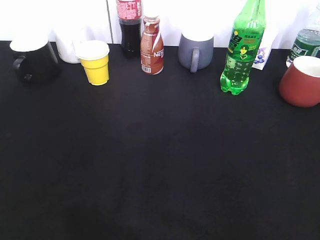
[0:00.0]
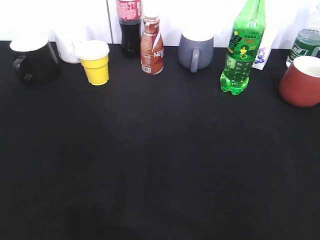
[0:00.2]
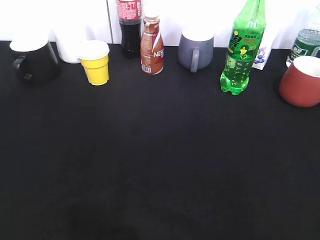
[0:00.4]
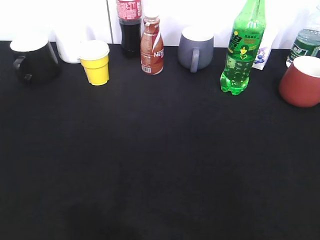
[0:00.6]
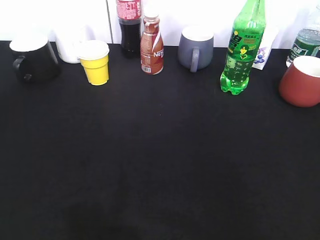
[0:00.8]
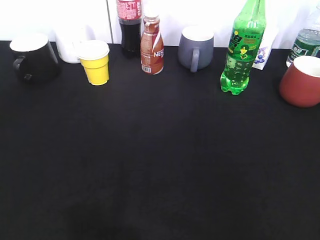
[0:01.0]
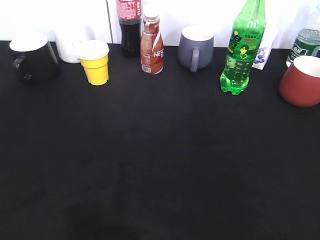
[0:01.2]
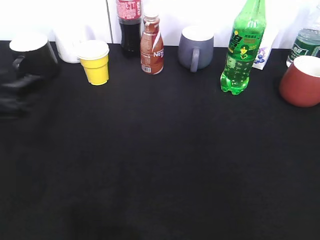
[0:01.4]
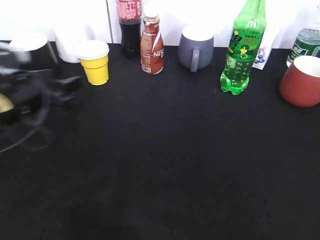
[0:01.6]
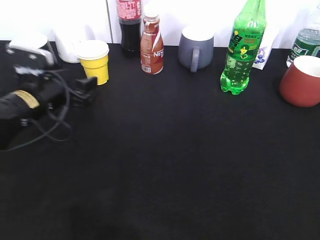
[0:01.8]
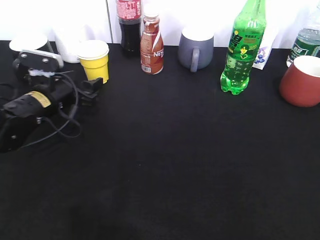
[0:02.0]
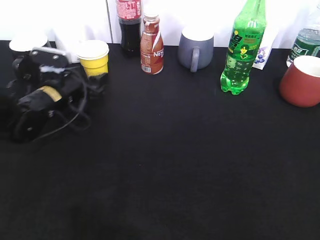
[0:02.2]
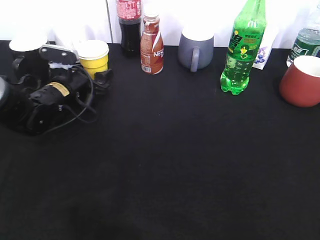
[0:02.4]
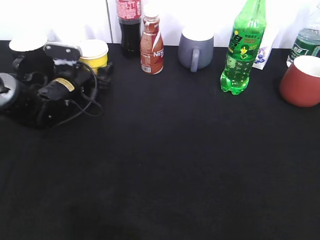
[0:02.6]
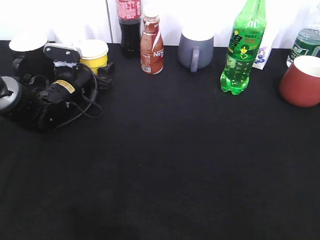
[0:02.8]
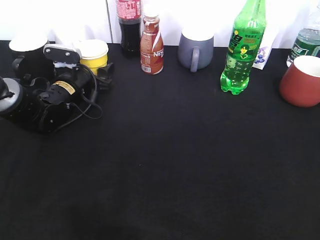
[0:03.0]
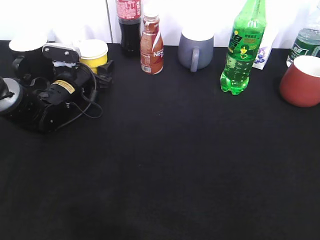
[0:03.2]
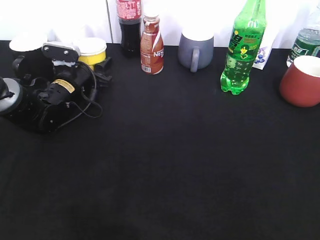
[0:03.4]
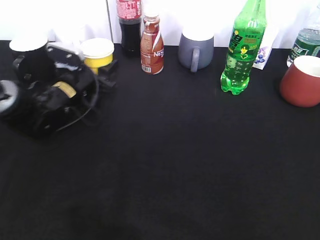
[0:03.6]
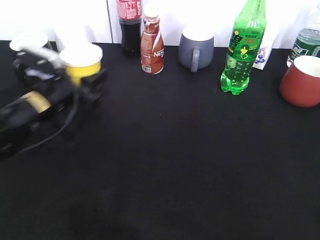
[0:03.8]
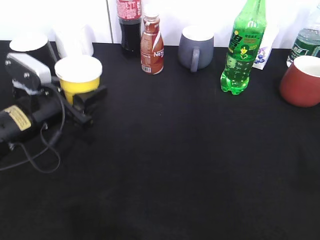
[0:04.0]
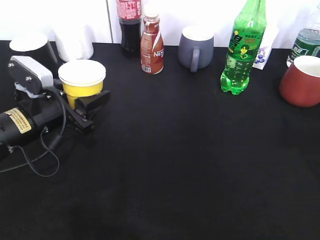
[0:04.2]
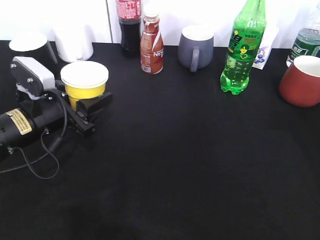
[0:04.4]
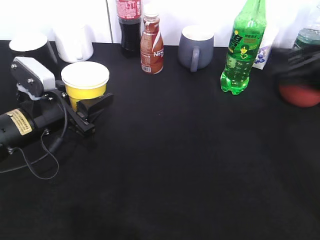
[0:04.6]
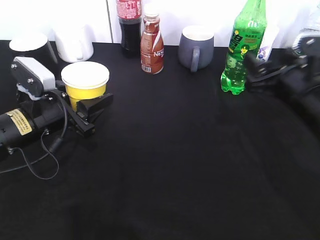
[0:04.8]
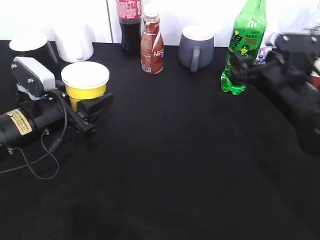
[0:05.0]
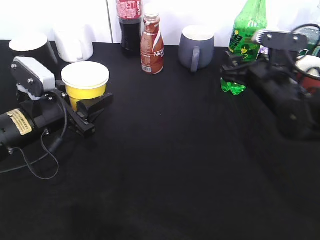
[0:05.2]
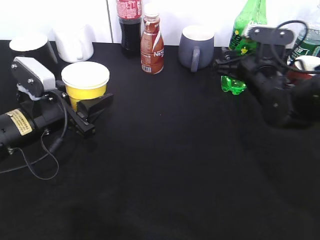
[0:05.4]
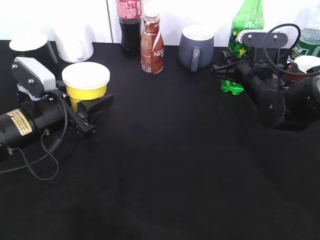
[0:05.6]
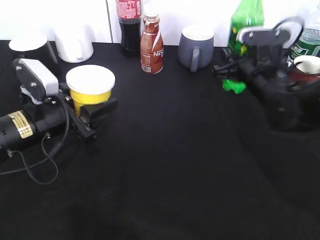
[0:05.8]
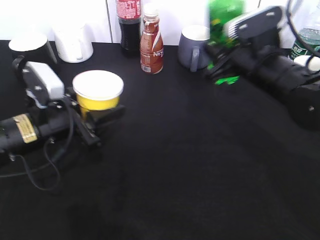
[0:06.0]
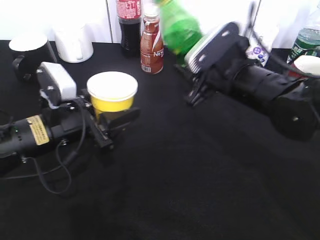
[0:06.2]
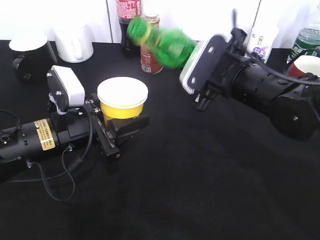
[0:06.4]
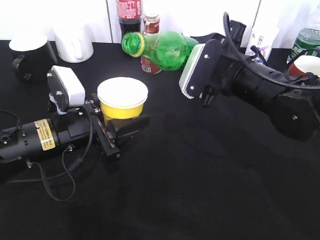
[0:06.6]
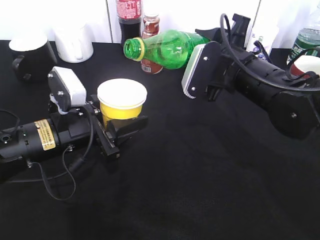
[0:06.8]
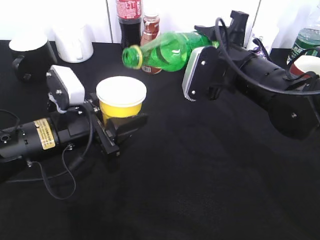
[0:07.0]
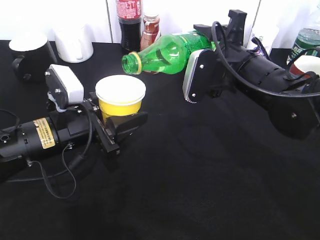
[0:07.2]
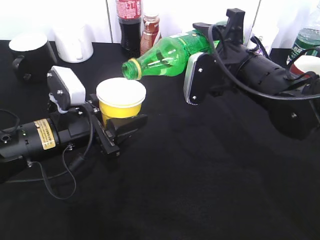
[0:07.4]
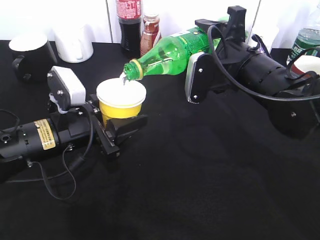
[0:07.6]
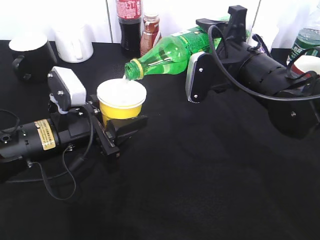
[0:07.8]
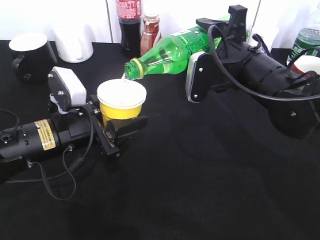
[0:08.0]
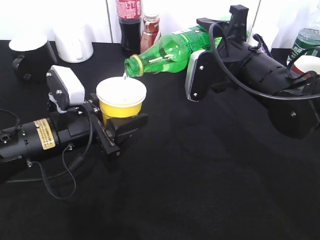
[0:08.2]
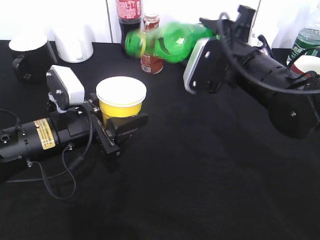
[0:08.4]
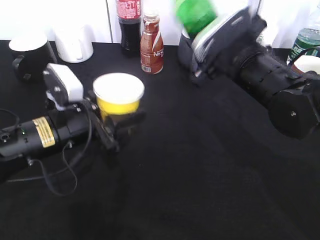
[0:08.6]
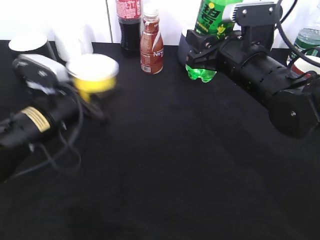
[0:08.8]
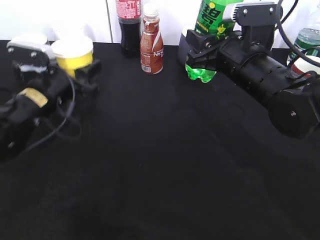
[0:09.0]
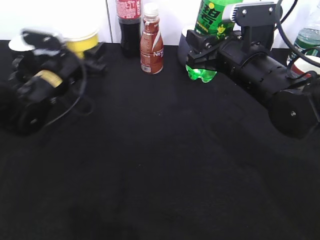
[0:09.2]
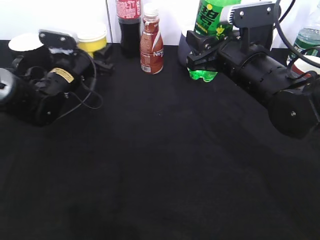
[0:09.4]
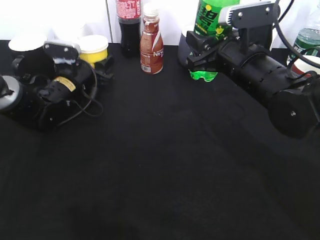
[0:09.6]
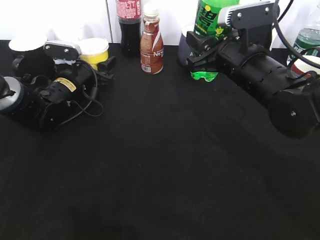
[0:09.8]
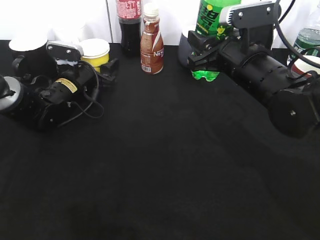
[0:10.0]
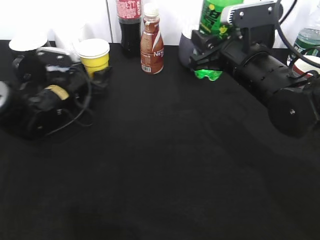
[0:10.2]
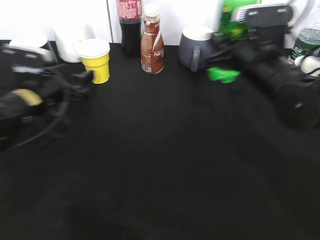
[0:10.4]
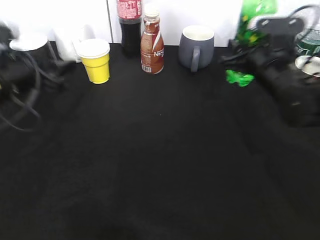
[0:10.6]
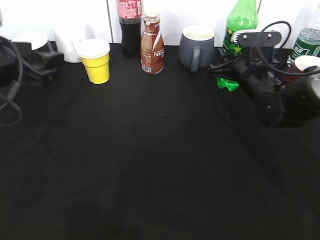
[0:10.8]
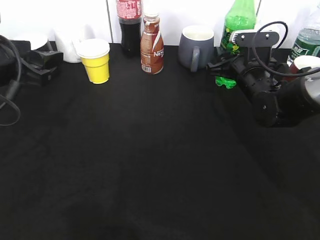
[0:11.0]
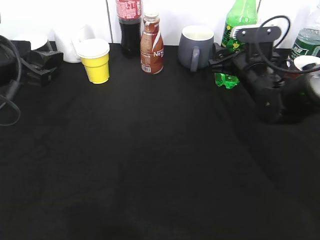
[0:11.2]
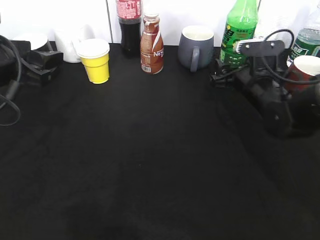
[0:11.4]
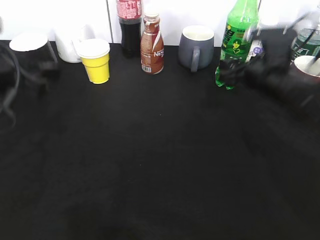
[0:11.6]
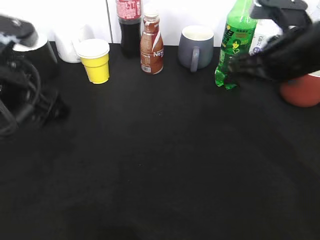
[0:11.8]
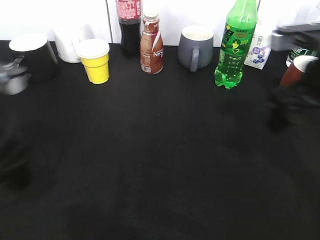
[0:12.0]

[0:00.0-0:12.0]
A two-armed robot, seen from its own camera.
Step, 0:00.0 to 0:03.2: Grasp the yellow paper cup with left gripper.
Step, 0:03.6 to 0:04.4: Lift the yellow paper cup with left gripper.
Step, 0:04.6 to 0:05.6: Grasp the bottle with sprite with right gripper.
Step, 0:05.8 to 0:08.2: Pour the sprite from bottle to cup with right gripper.
Step, 0:08.6 to 0:11.2: Place the sprite bottle on the table with right gripper.
0:00.0 to 0:01.6: The left gripper goes roughly 30 cm forward and downward, and closes up.
0:01.6 to 0:03.0: The left gripper heads forward and downward, covering about 15 cm.
0:03.0 to 0:04.4: The left gripper is displaced backward by roughly 15 cm, and closes. Meanwhile the right gripper moves forward, some 25 cm.
0:04.4 to 0:06.0: The right gripper goes approximately 20 cm to the left, forward and downward, and closes its fingers.
0:07.6 to 0:09.0: The left gripper shifts some 10 cm forward.
0:09.0 to 0:10.4: The left gripper travels forward and back again, about 10 cm each way, and opens its fingers.
0:10.4 to 0:12.0: The right gripper heads backward and upward, covering roughly 10 cm, and opens. Meanwhile the left gripper heads backward and upward, covering about 20 cm.

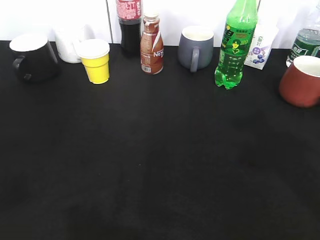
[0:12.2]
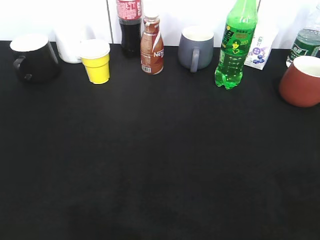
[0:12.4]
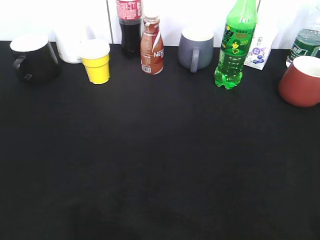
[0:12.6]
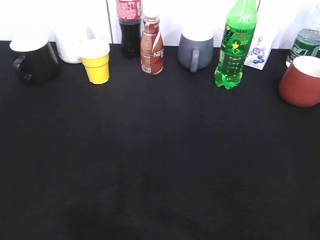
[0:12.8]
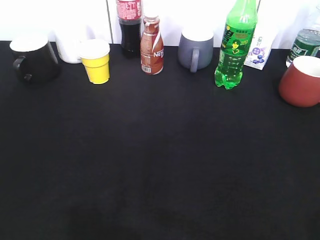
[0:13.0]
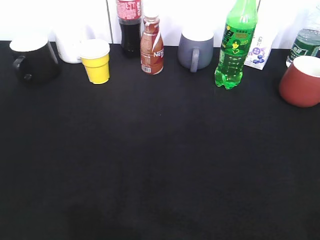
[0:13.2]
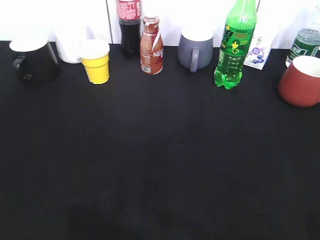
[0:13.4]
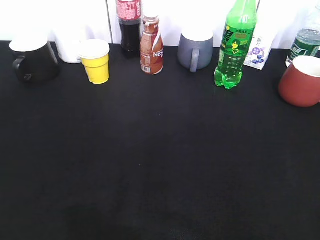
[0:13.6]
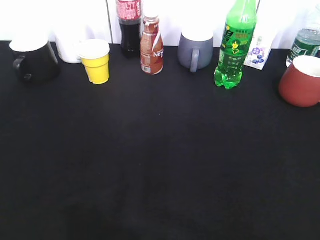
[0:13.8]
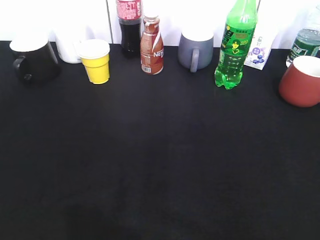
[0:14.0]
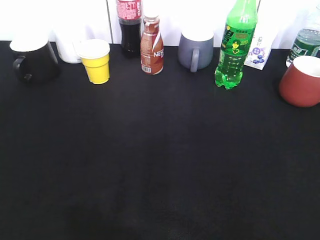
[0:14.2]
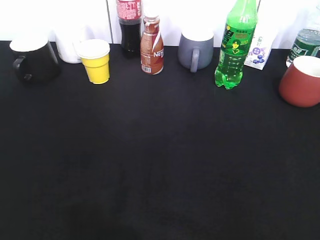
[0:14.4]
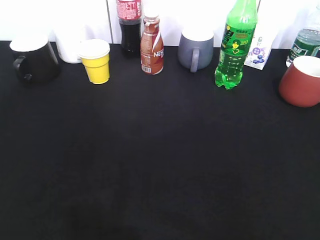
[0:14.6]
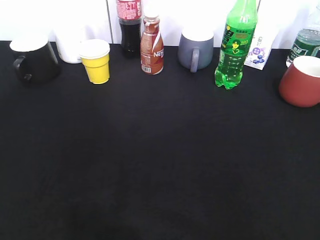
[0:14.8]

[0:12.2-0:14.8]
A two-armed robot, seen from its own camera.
0:12.2 to 0:13.4: The left gripper goes approximately 10 cm backward and to the left. The right gripper moves backward, about 15 cm.
